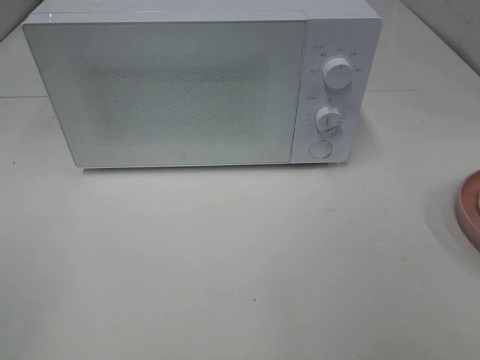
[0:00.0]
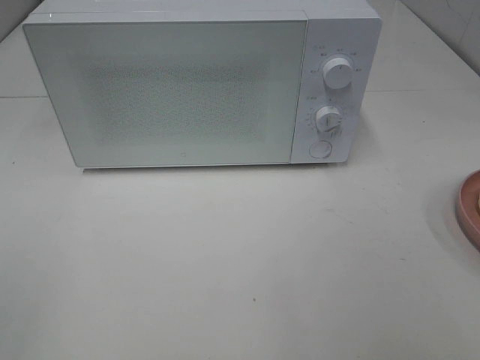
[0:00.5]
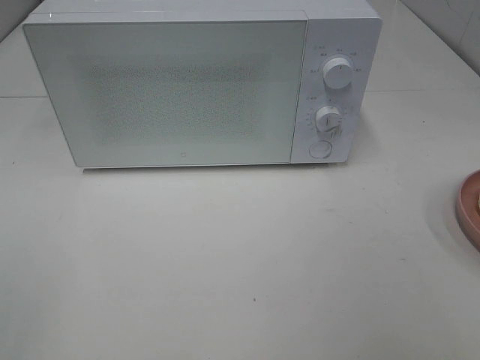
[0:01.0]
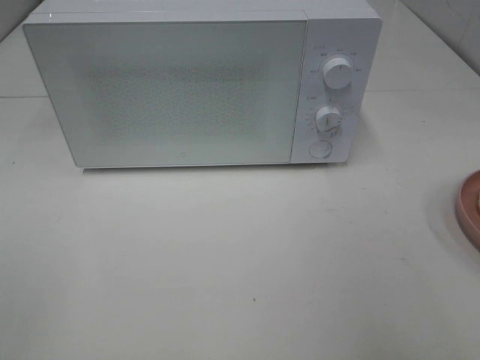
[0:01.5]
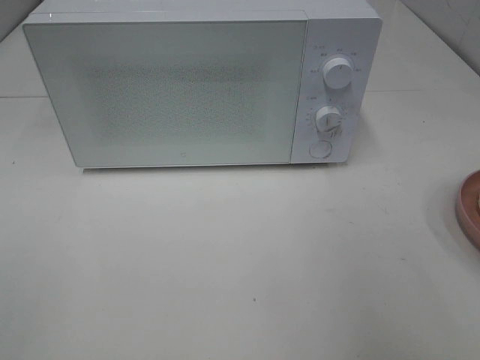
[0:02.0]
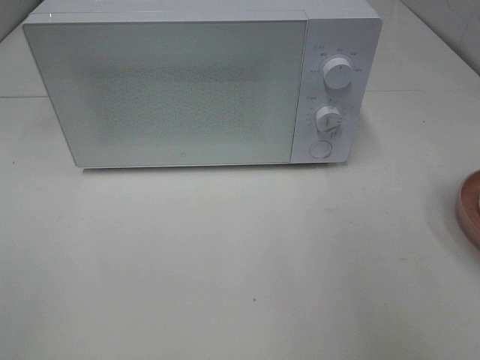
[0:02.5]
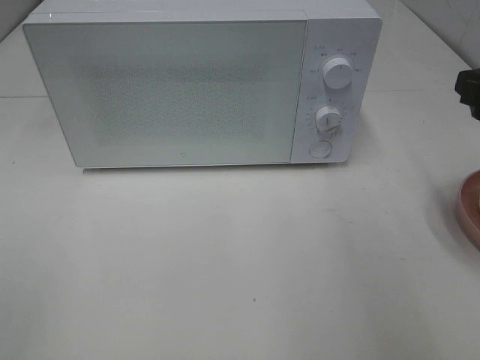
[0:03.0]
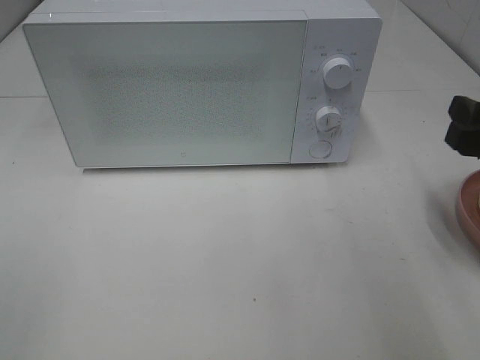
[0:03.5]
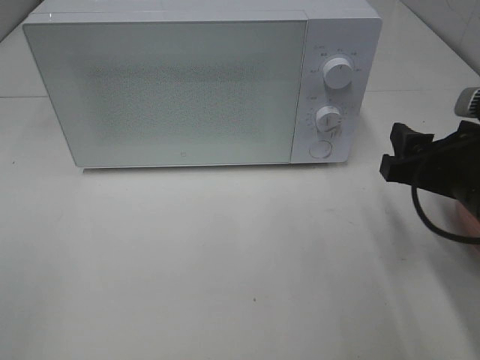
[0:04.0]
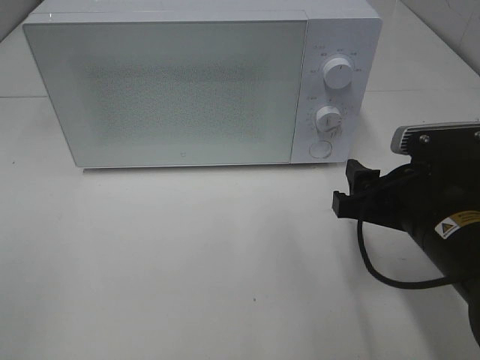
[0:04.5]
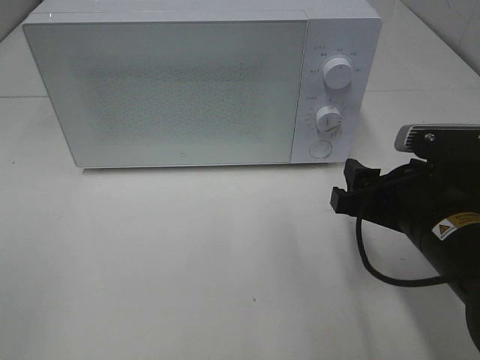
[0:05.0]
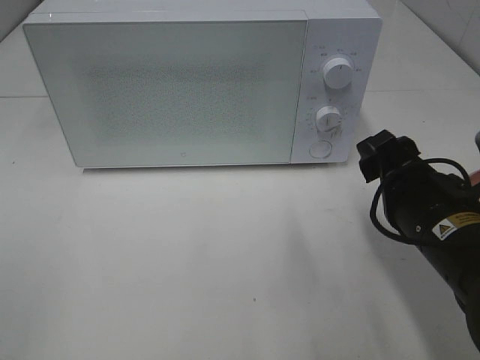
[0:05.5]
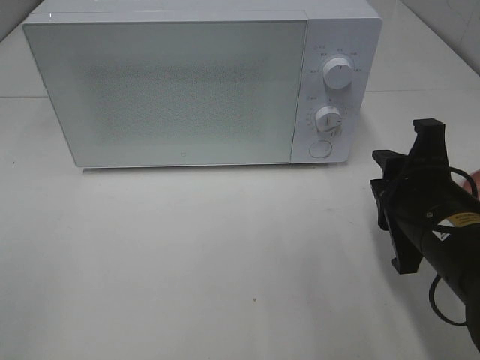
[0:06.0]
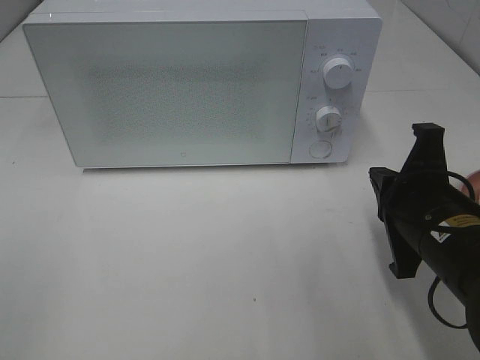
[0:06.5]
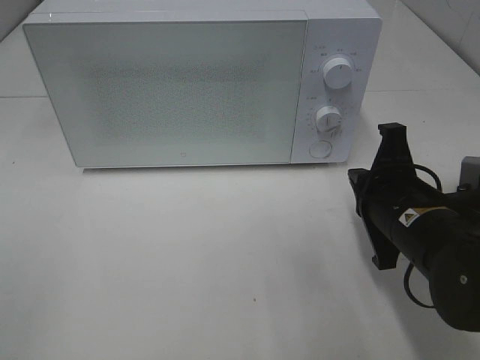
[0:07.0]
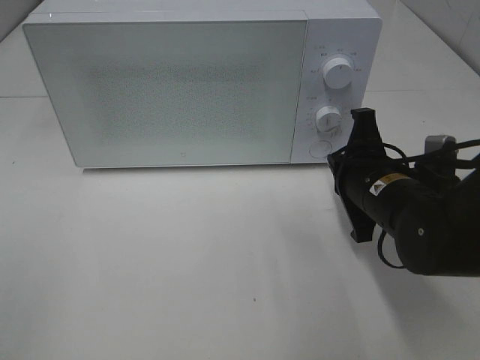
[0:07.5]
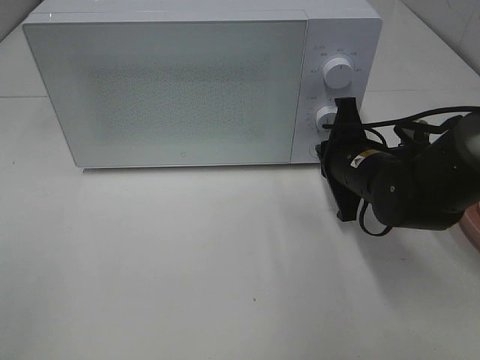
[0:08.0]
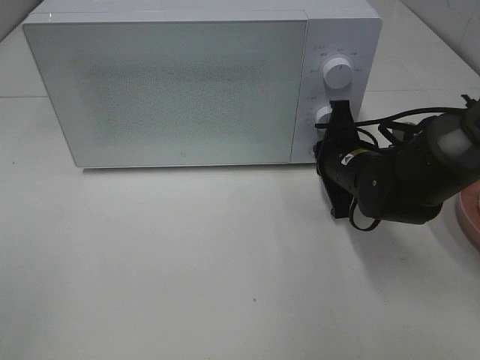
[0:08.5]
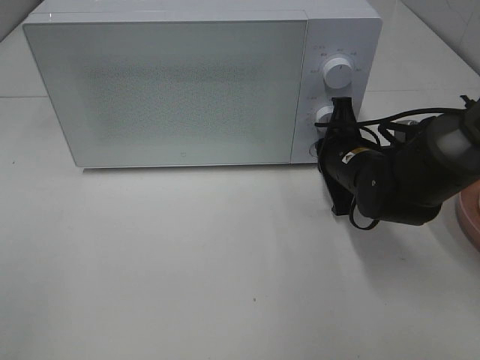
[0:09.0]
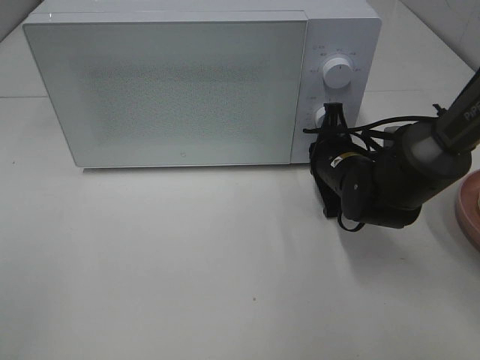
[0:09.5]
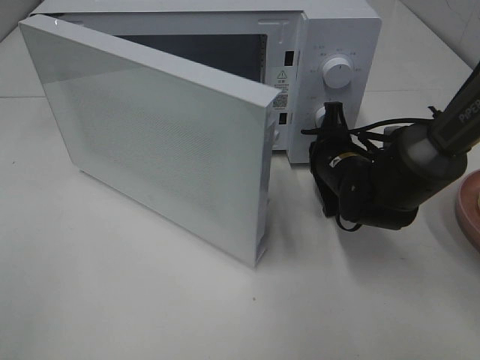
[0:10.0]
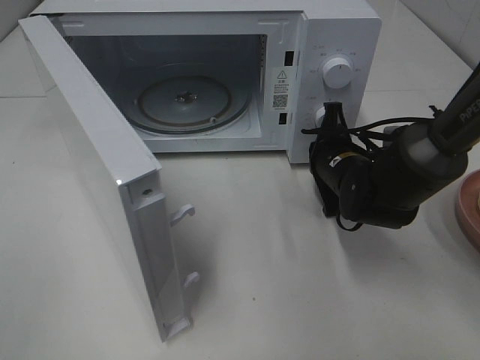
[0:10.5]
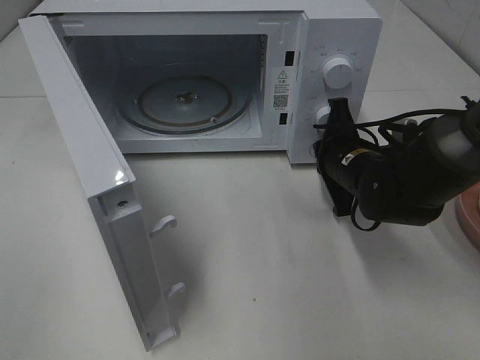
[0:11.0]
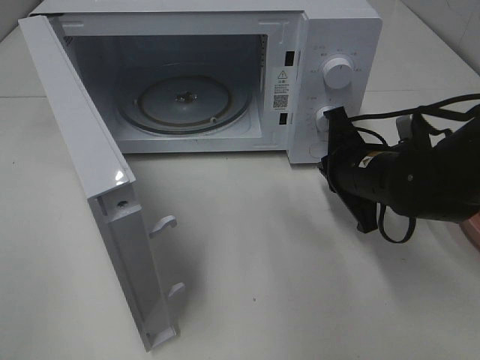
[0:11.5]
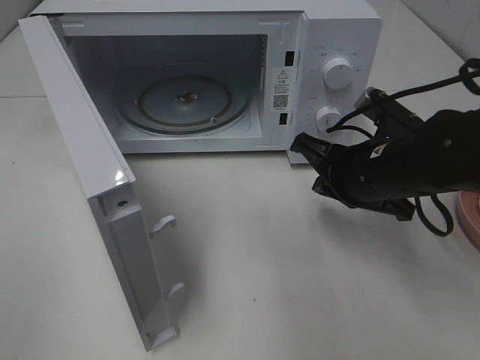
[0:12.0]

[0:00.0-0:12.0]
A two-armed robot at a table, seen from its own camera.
Task of the whole recording: Heat Sandwich.
Step, 0:00.0 to 0:11.0: Right hand: press the switch.
0:02.0 to 0:04.0: The right gripper travels downward, forward and to the left by some 15 cm.
0:04.0 to 0:06.0: The right gripper shifts by some 5 cm, and closes.
0:06.0 to 0:08.0: The right gripper is displaced forward by approximately 10 cm, and closes.
0:10.0 to 0:12.0: The right gripper goes approximately 10 cm backward and upward.

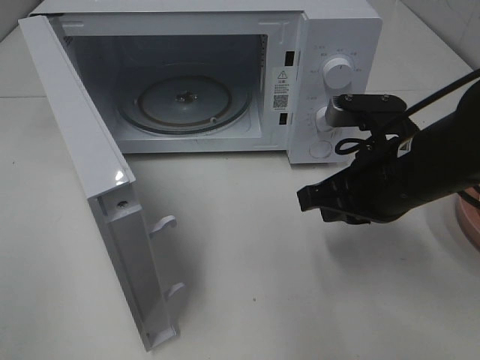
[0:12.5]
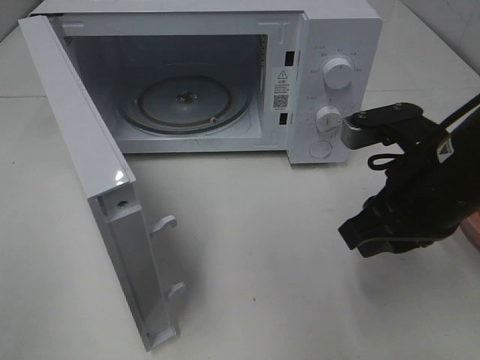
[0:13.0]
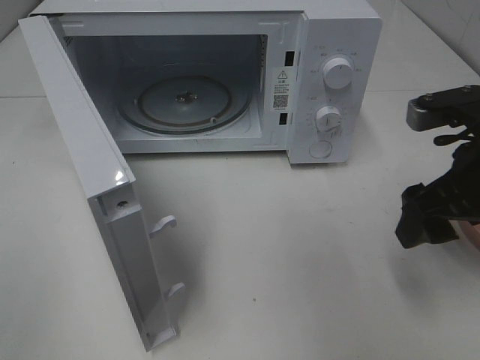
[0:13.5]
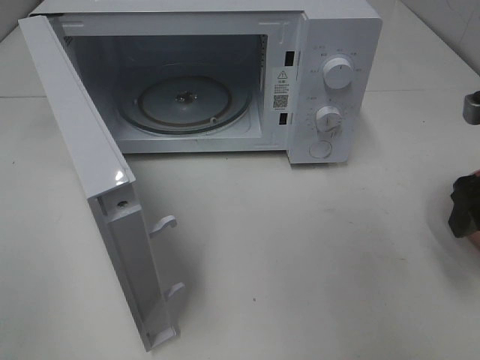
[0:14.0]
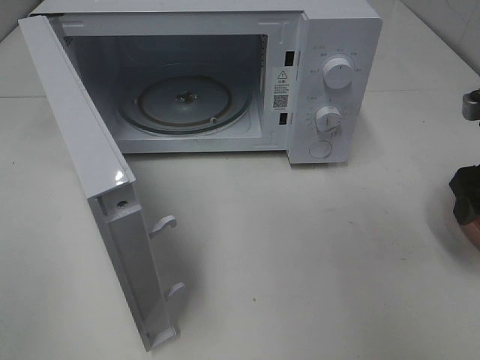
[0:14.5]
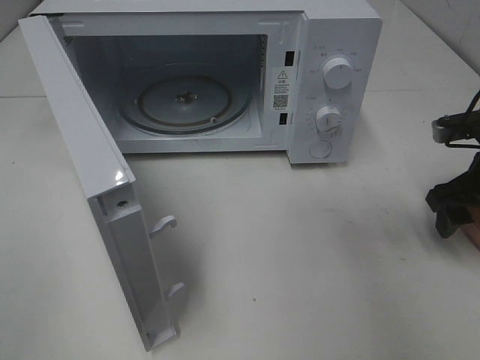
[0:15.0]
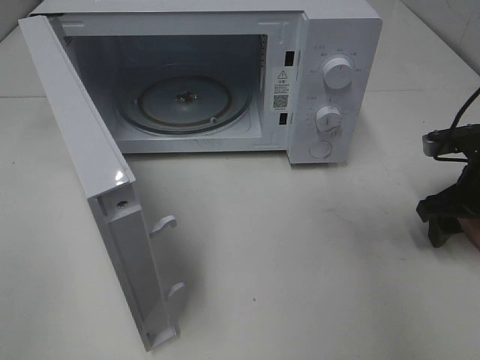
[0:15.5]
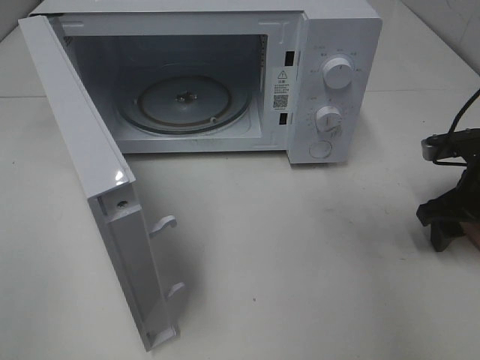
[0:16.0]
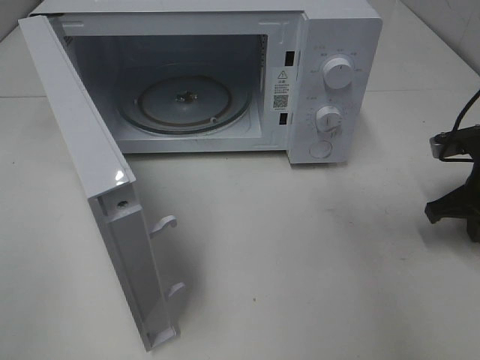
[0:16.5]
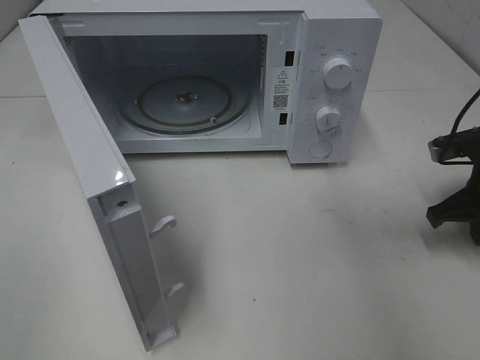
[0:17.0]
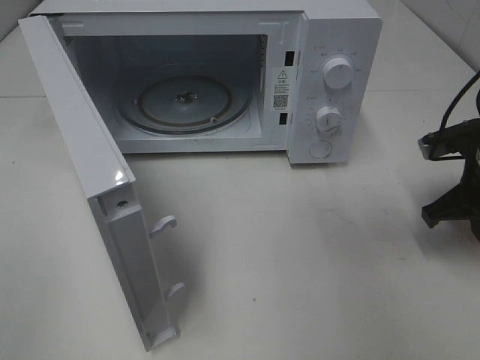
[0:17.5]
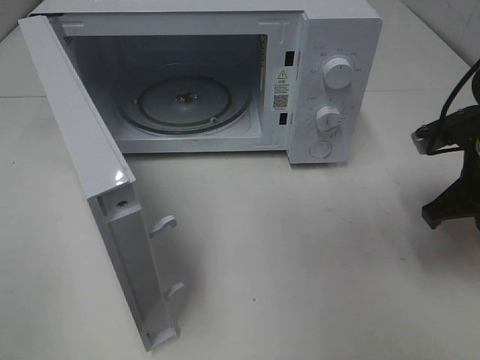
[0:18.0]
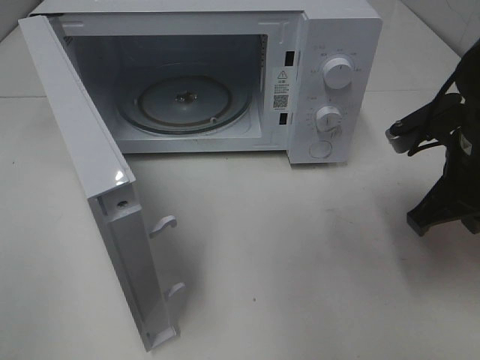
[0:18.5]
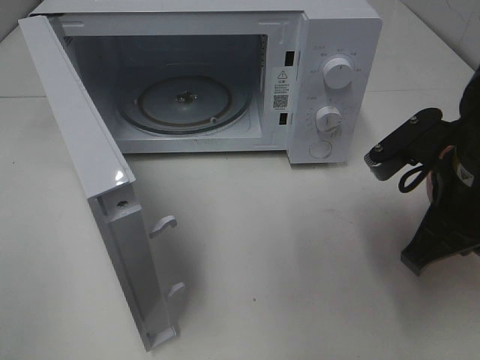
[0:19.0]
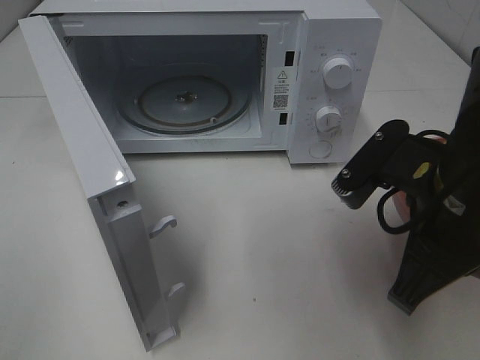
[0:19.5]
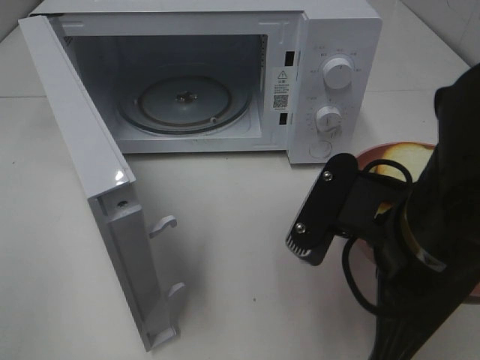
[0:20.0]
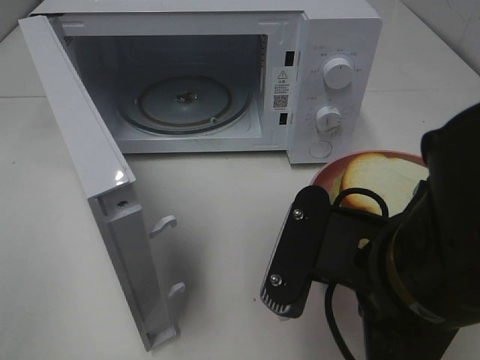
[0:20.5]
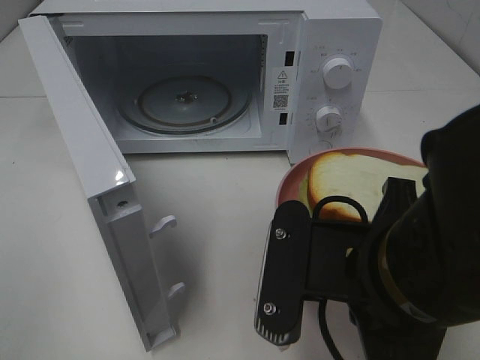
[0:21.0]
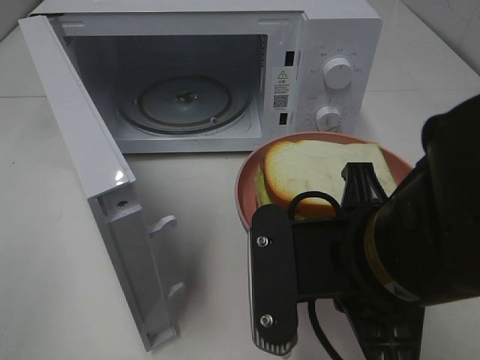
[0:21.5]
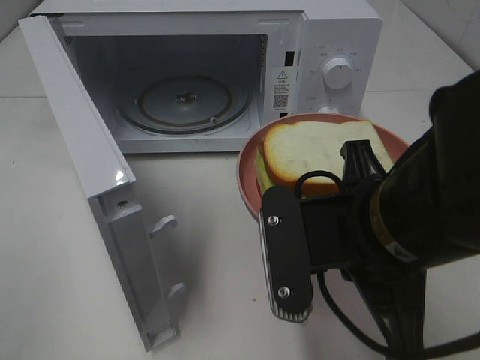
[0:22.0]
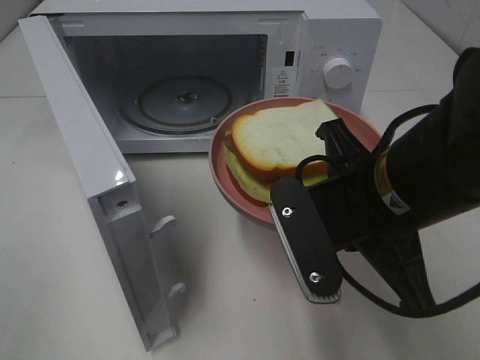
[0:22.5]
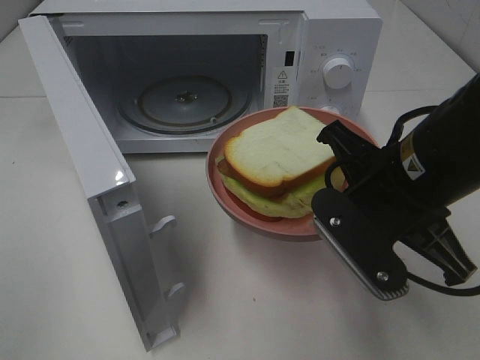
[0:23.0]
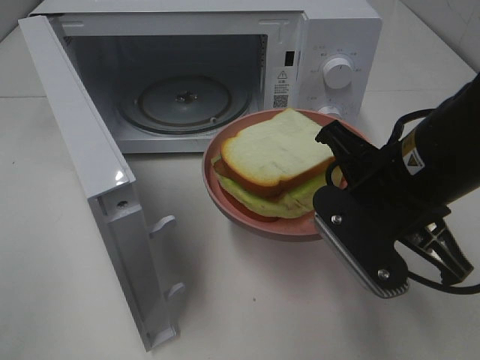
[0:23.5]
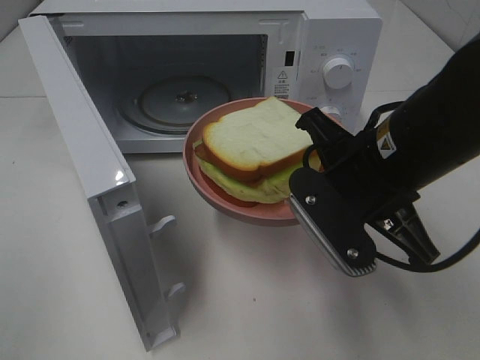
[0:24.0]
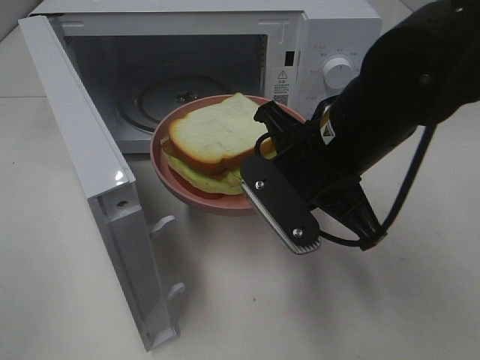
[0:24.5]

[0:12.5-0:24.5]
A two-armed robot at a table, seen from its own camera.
Task of the whole recording: Heat Sandwich.
Step, 0:12.5 to 0:16.5: Right hand: grab the plate with the sandwich.
0:12.5 to 0:14.5: The right gripper goes some 15 cm to the right, and opens its fingers.
0:14.5 to 0:16.5: The right gripper shifts approximately 10 cm downward, and closes up.
0:16.5 to 0:18.5: The right gripper shifts roughly 15 cm to the left, upward and backward.
0:18.5 to 0:20.5: The right gripper heads backward and to the left, covering about 20 cm.
0:20.5 to 0:22.5: The right gripper goes roughly 5 cm forward.
0:22.5 to 0:24.5: The right gripper is displaced forward by approximately 5 cm.

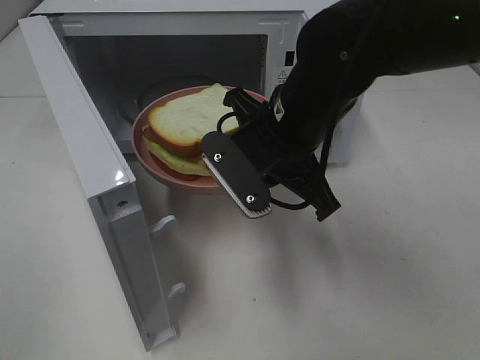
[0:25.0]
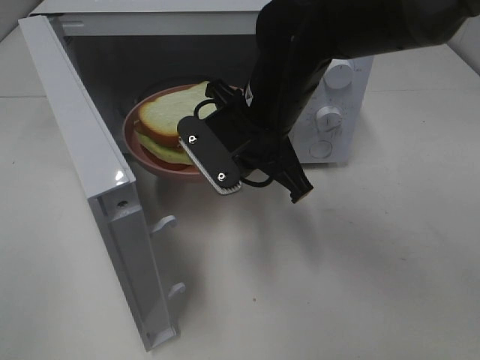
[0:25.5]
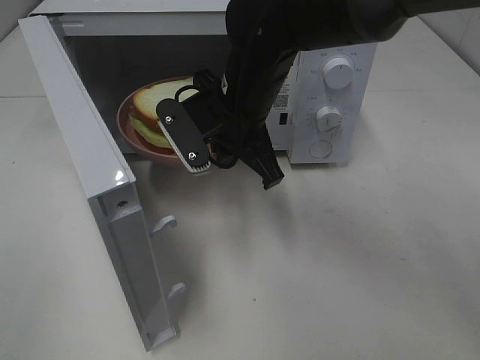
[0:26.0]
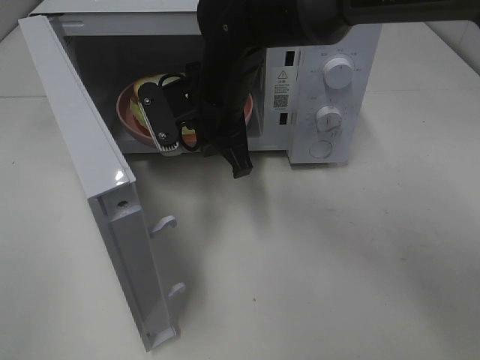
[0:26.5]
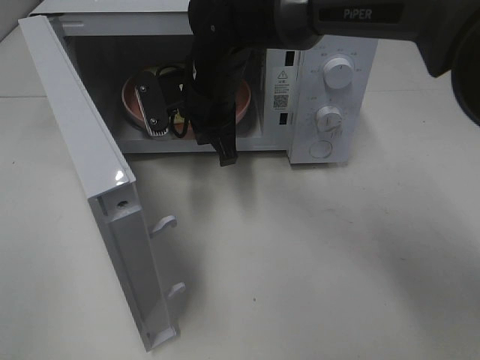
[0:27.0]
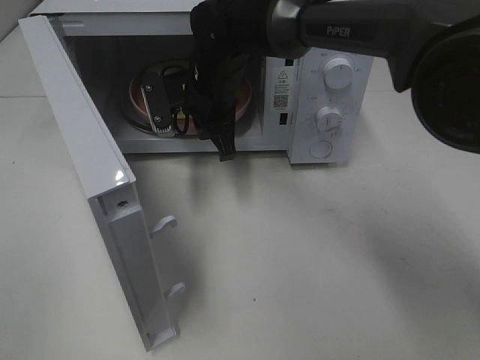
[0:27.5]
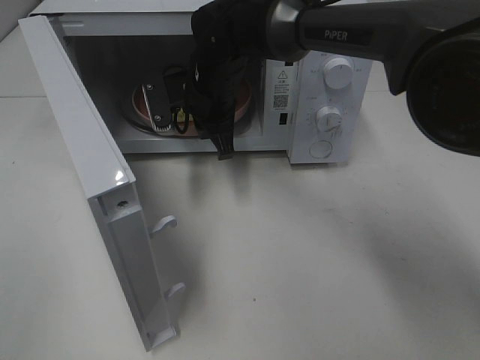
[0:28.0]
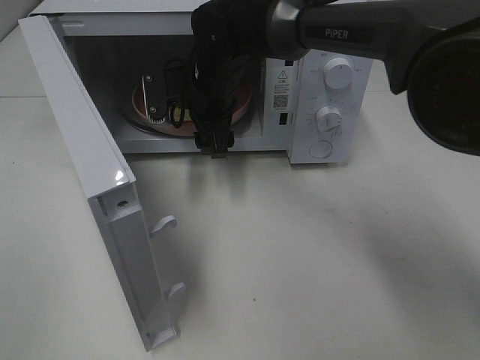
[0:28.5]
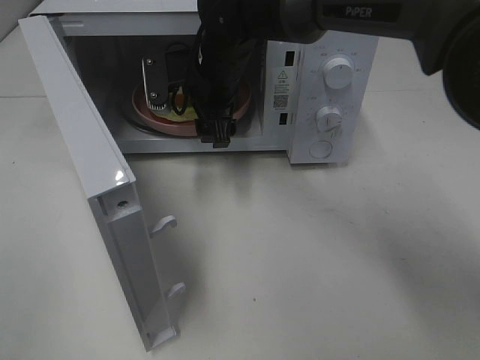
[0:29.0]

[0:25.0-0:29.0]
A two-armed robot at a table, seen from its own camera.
Task of the whole recording: Heat Sandwich.
0:25.0 to 0:27.0: The right gripper travels forward and to the left by some 15 cm.
0:27.0 to 0:29.0: The right gripper opens its fingers.
